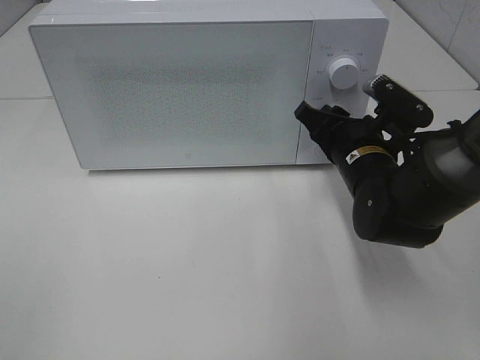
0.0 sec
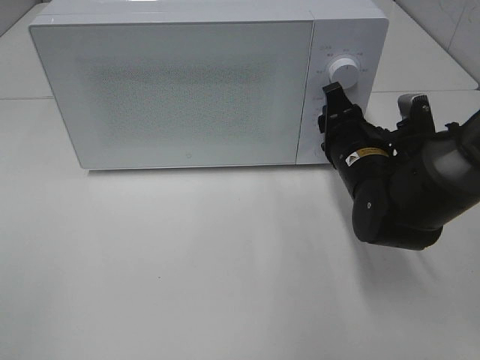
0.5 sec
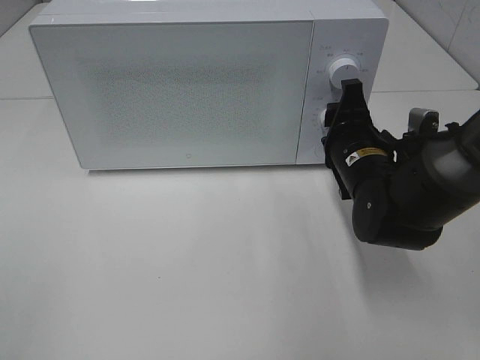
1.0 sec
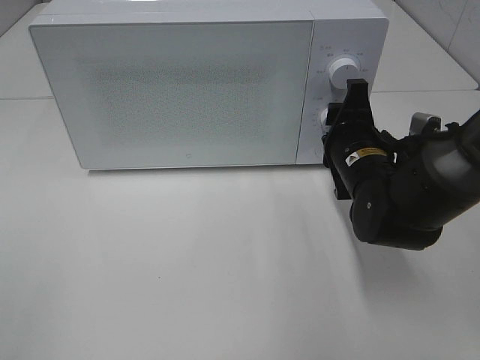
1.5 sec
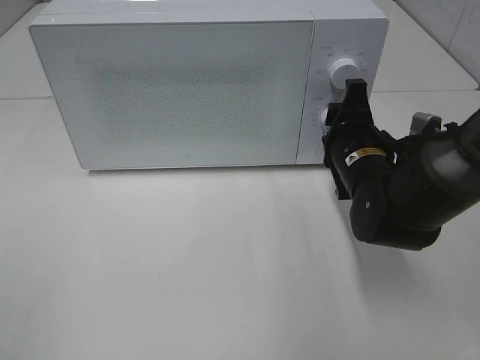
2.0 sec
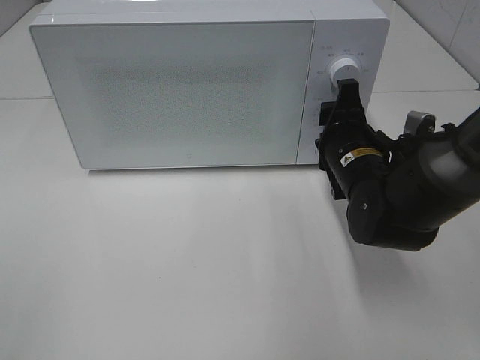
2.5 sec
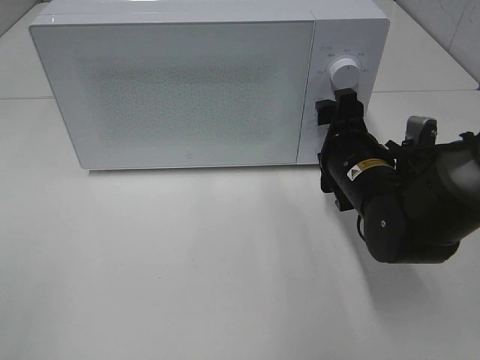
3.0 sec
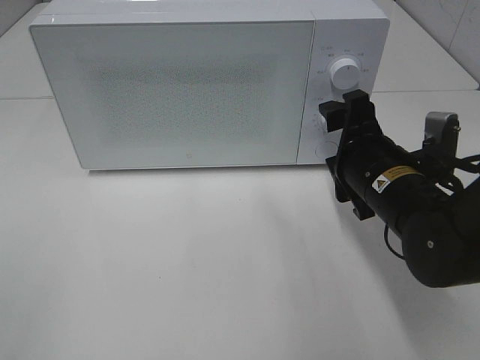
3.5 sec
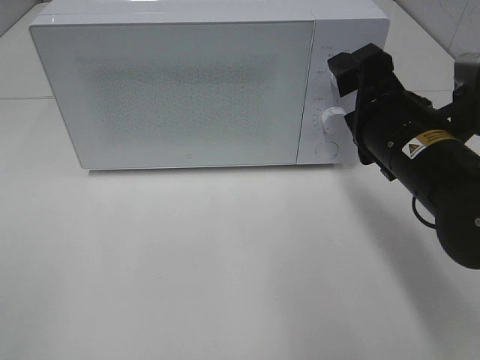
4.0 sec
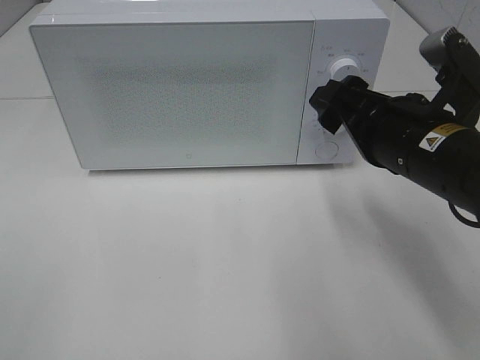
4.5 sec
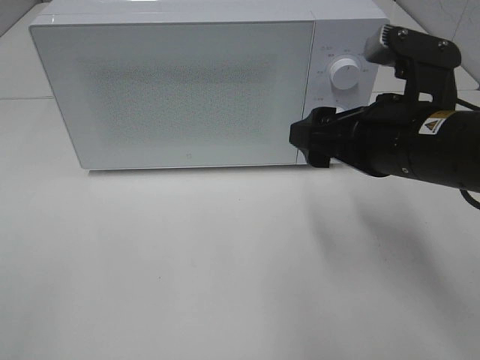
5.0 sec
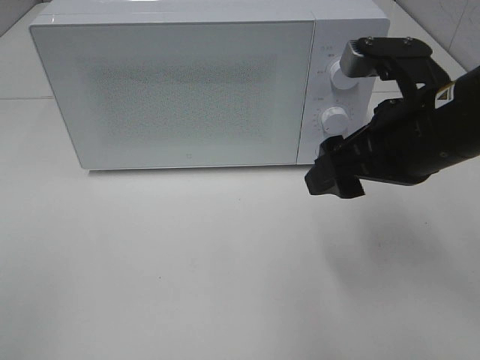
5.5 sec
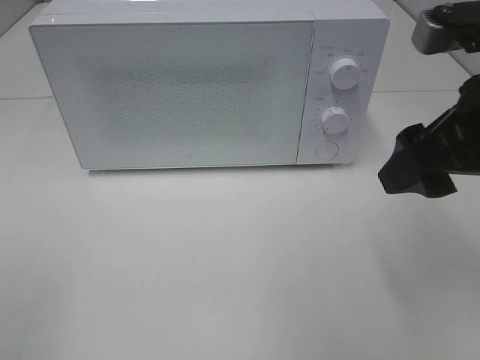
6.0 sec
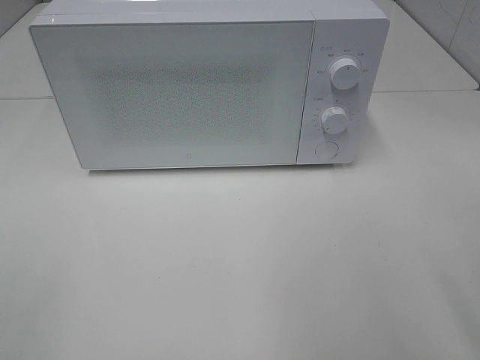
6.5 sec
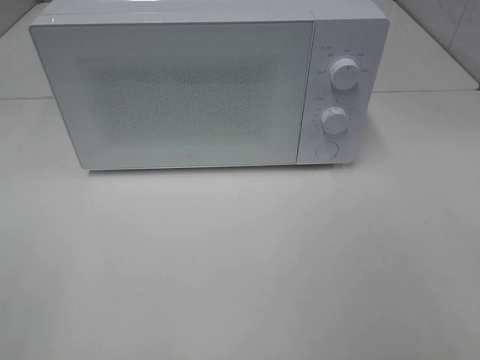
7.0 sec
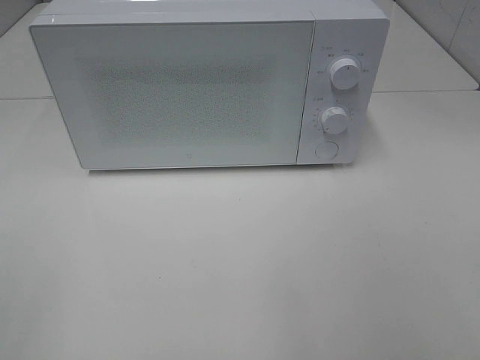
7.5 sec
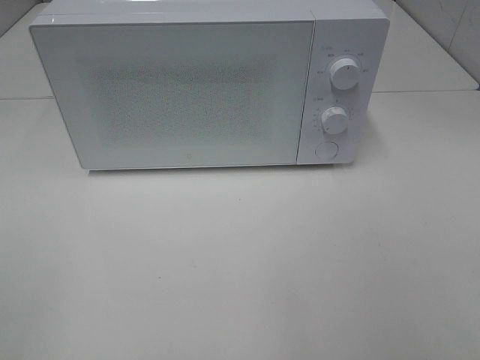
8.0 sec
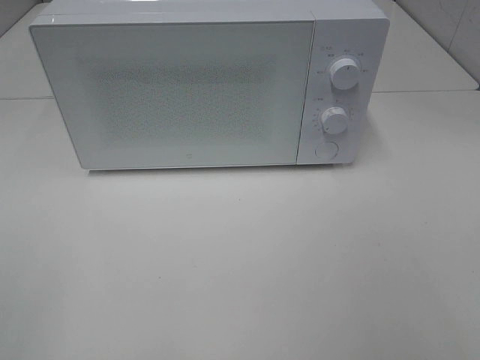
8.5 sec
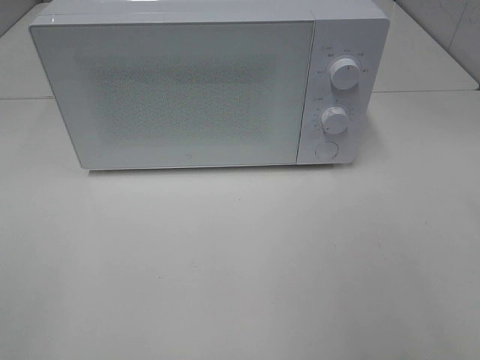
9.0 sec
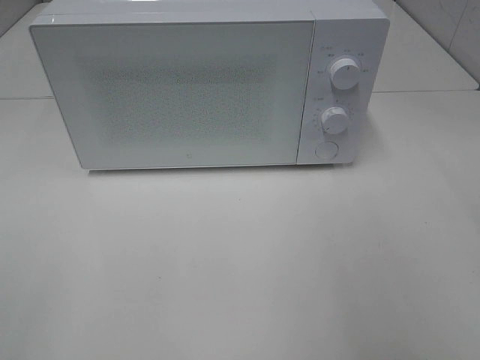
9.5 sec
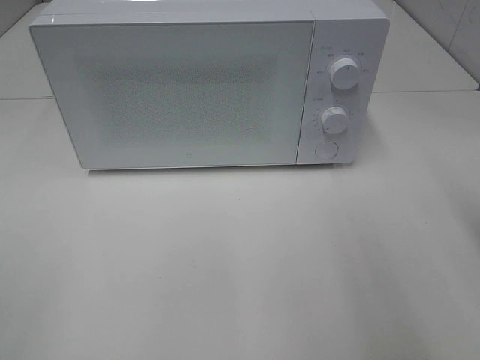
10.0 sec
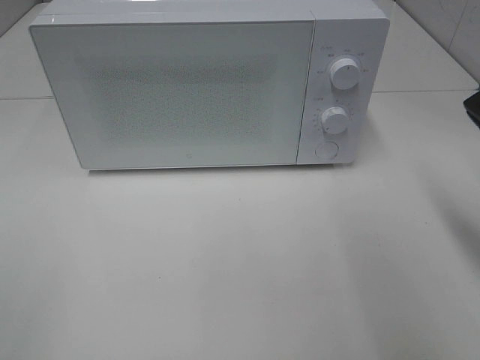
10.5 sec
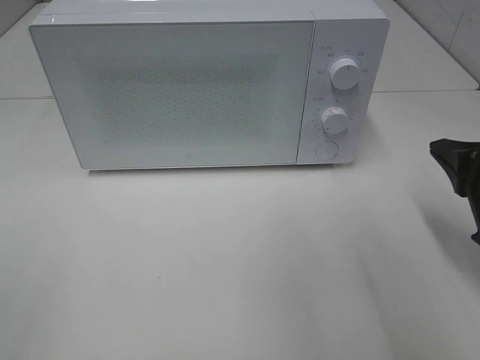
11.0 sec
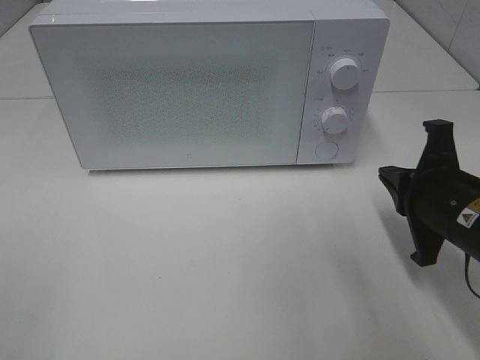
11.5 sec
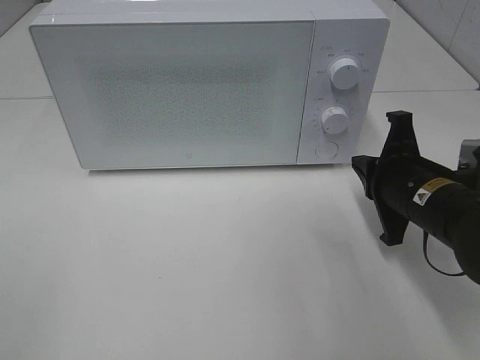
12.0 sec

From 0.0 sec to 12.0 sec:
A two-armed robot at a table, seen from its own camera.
Task of the whole recording: Heat the burger.
Step, from 0.0 sec to 2.5 sec: Right hand: twist timer button.
From 2.0 sec to 4.0 sec: The right gripper travels upward and backward by some 10 cm, and opens.
From 4.0 sec to 6.0 sec: The right gripper heads upward and backward, covering about 10 cm.
From 6.0 sec to 8.0 sec: The right gripper is displaced backward and to the right by some 20 cm.
From 10.0 sec to 12.0 sec: The right gripper moves downward, forward and to the left, approximately 20 cm.

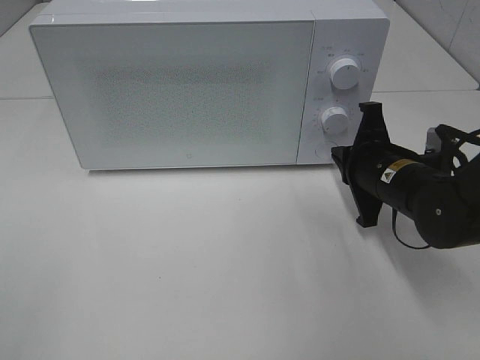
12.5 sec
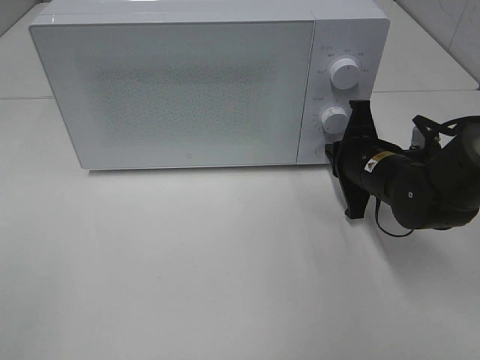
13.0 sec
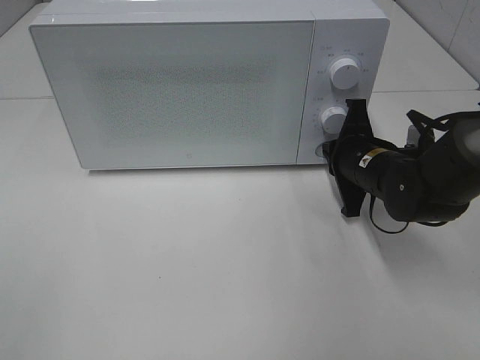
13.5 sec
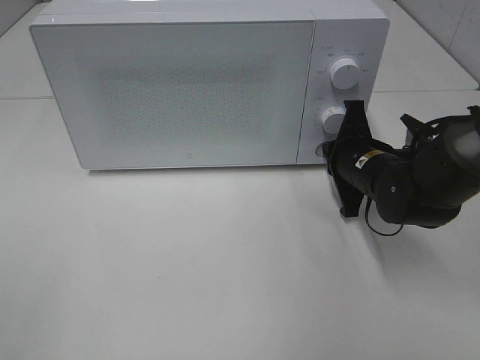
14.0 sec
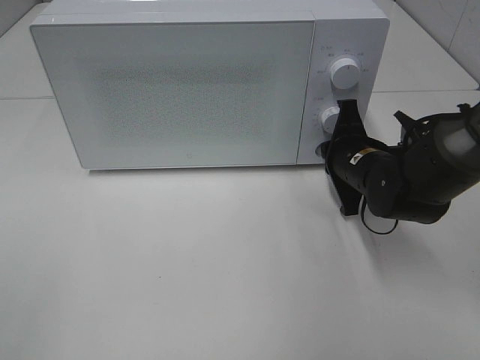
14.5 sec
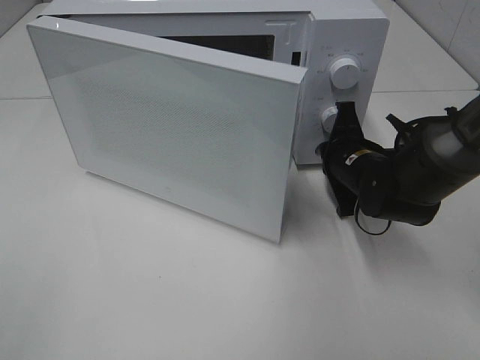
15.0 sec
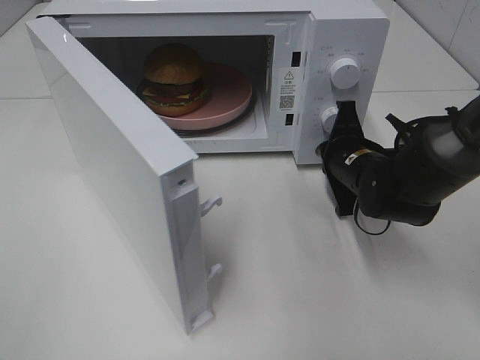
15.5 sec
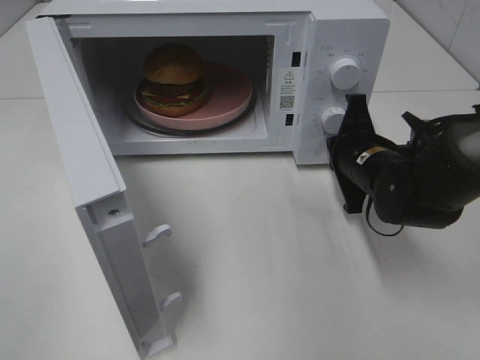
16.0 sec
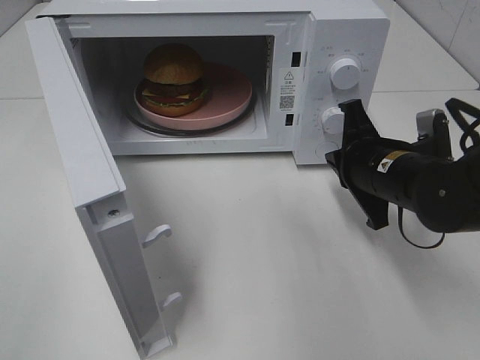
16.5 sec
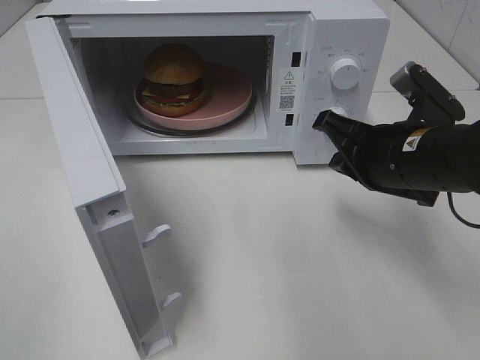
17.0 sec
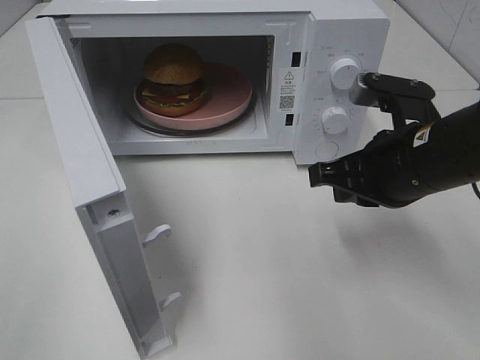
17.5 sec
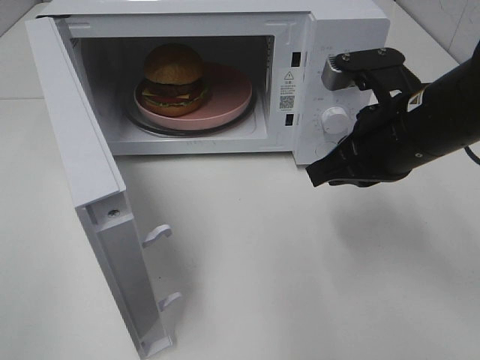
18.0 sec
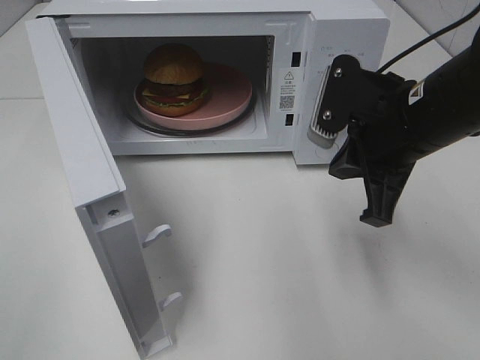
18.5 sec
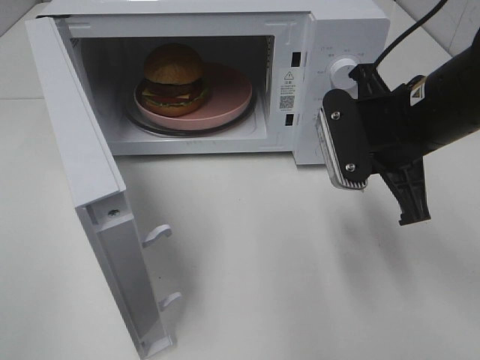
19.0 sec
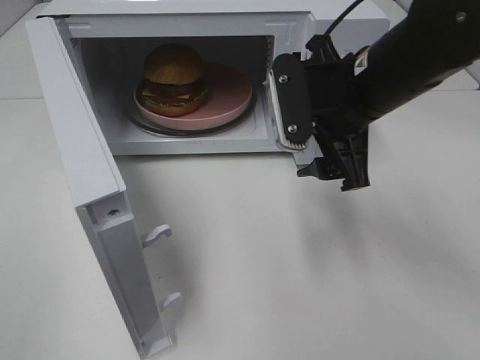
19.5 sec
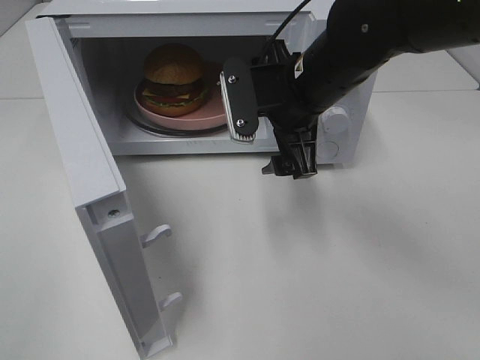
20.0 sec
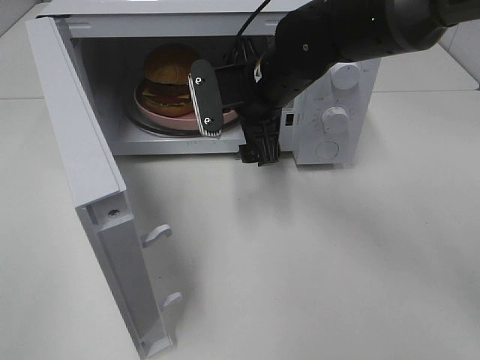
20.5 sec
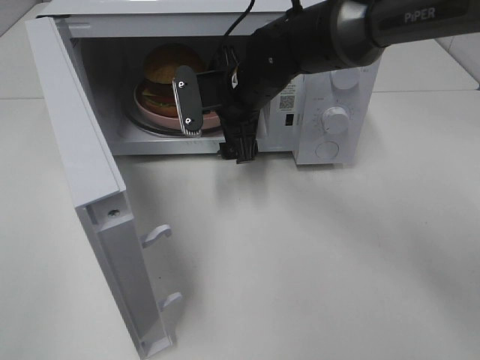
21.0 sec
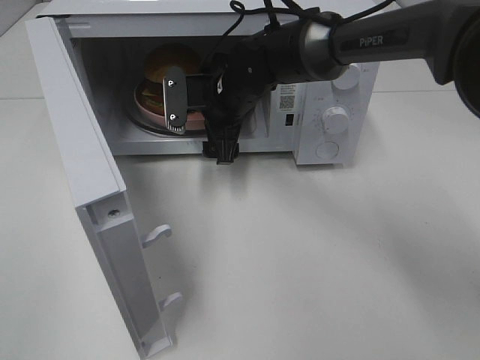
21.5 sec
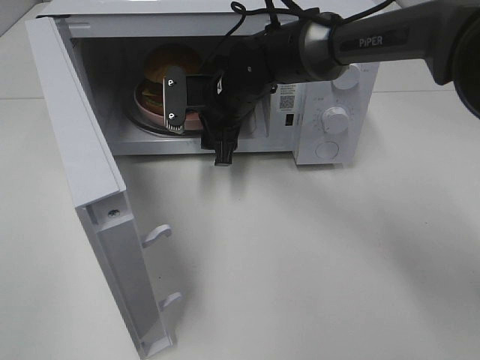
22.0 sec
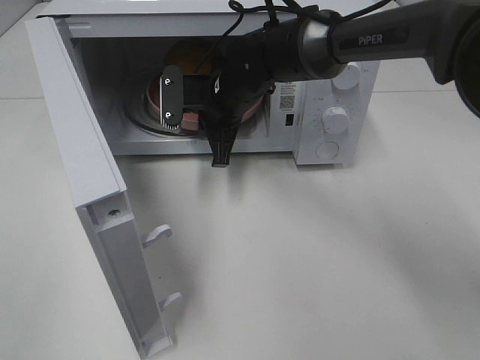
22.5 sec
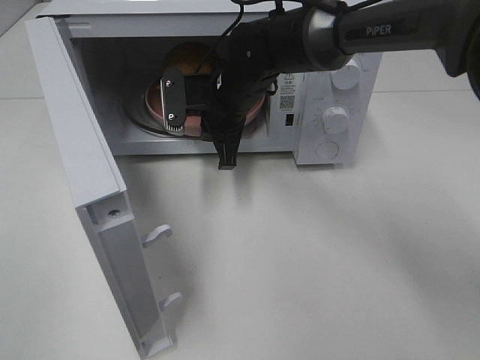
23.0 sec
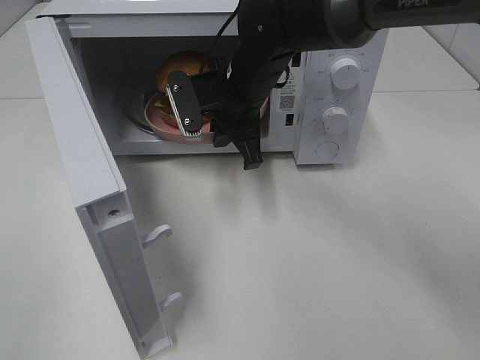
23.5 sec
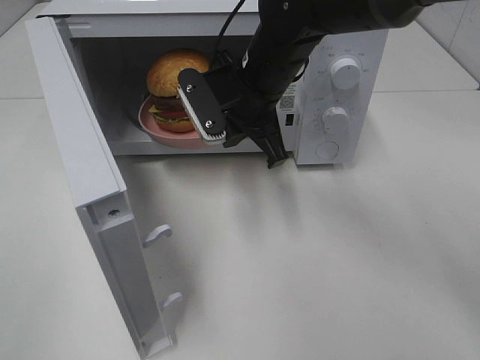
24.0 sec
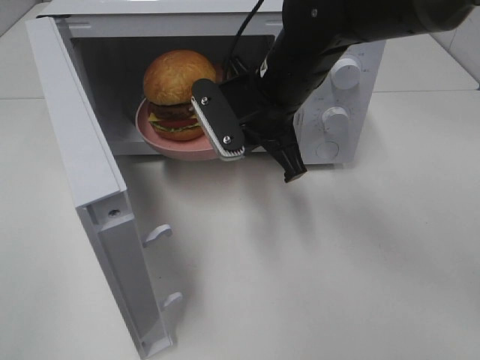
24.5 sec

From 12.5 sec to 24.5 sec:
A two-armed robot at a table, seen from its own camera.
Task of the whole recording: Heat the burger.
Step, from 12.5 sec to 16.0 sec: Right hand: press the switch.
Step, from 16.5 sec to 22.0 sec: Right hand: grab the plate with the hamburger.
From 12.5 sec to 14.5 sec: The grippers move only a little.
From 14.5 sec to 16.5 sec: The right gripper heads backward, covering about 5 cm.
From 16.5 sec to 18.5 sec: The right gripper travels upward by some 10 cm.
From 18.5 sec to 20.5 sec: The right gripper goes approximately 15 cm to the left and forward, and opens.
From 20.5 sec to 22.5 sec: The right gripper heads forward, covering roughly 5 cm, and closes its fingers.
From 22.5 sec to 24.5 sec: The right gripper goes some 10 cm backward, upward and to the right.

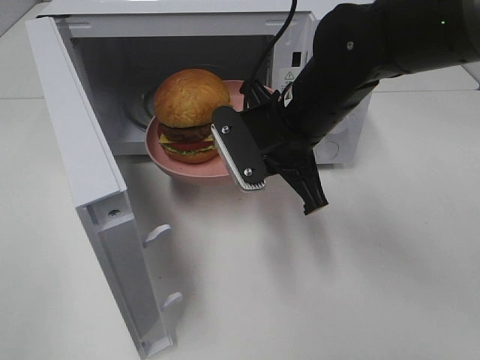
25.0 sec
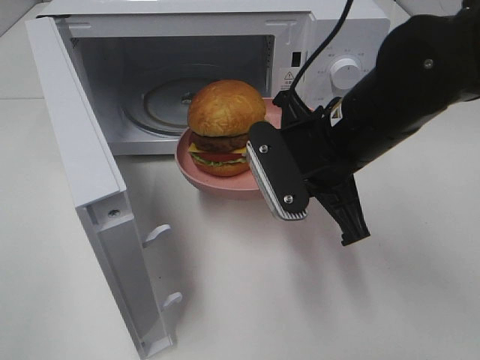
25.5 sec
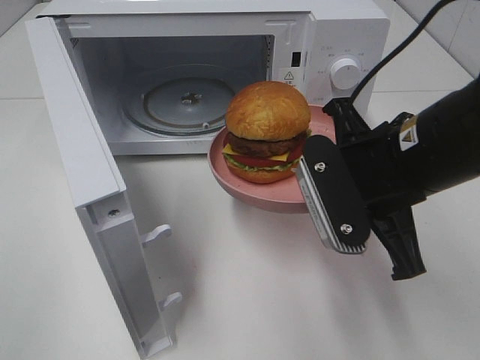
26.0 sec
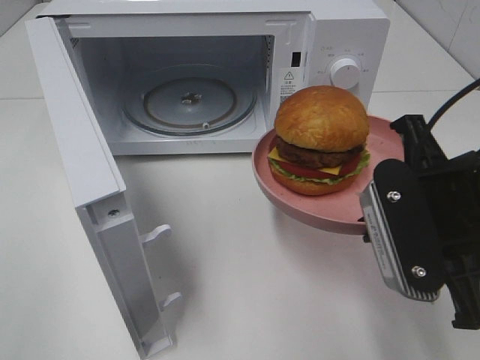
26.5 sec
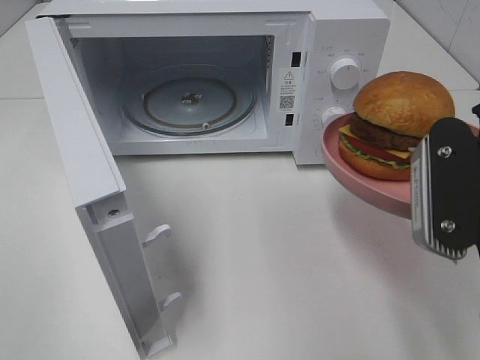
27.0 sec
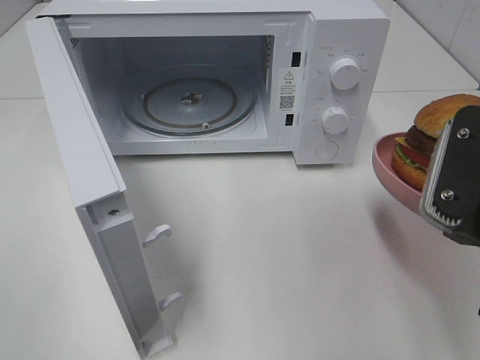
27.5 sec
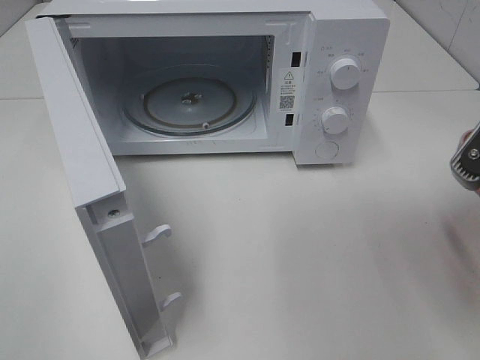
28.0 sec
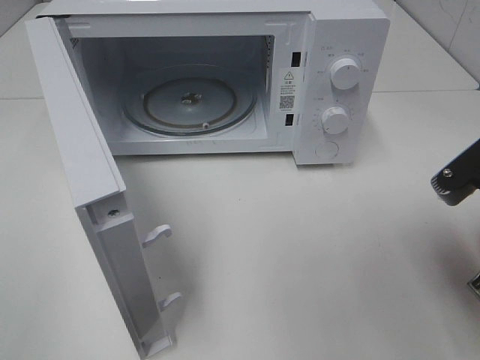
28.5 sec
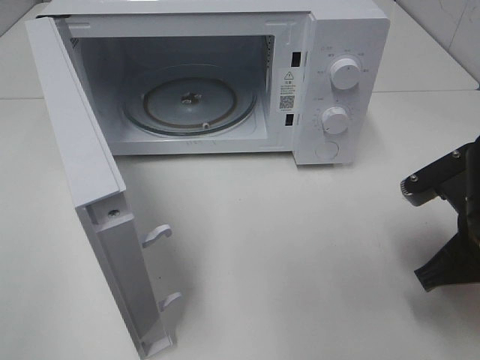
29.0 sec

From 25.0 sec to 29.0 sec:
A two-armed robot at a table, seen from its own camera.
Task of the whole recording: Heat the burger.
From 25.0 sec to 27.0 sec: The right gripper goes about 20 cm backward and to the right.
From 27.0 sec to 29.0 sec: The right gripper heads downward, covering some 10 cm.
